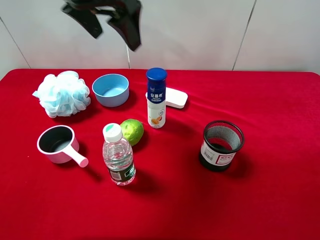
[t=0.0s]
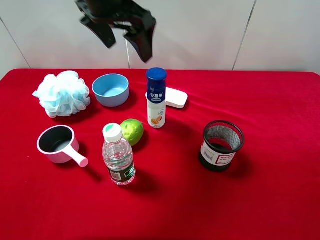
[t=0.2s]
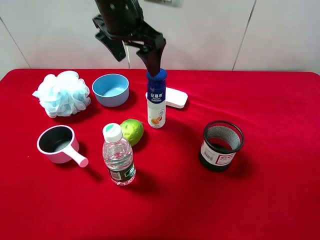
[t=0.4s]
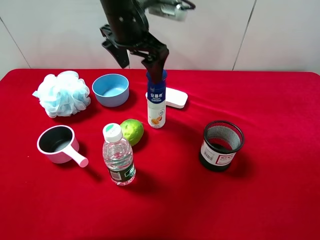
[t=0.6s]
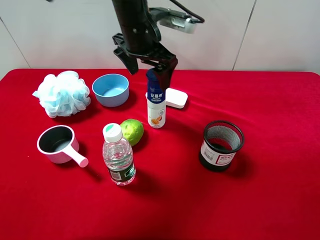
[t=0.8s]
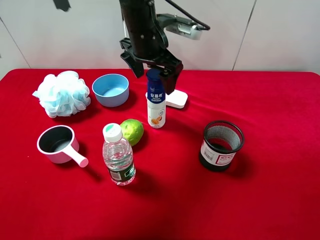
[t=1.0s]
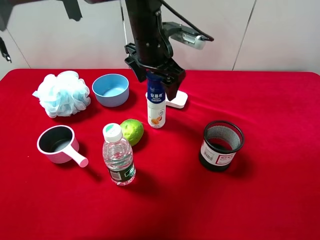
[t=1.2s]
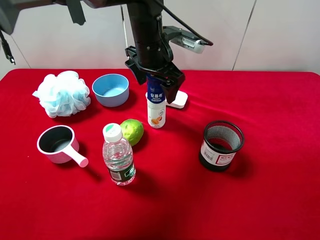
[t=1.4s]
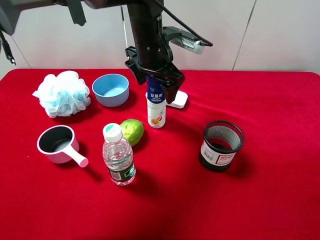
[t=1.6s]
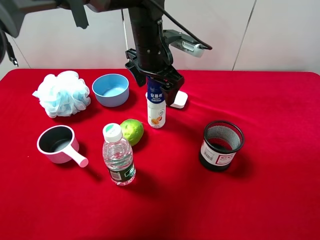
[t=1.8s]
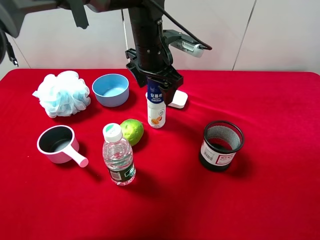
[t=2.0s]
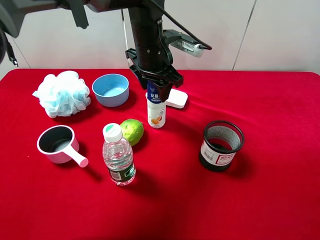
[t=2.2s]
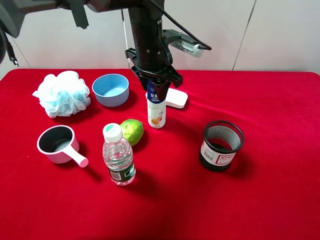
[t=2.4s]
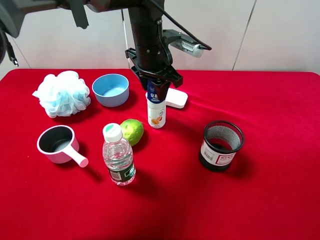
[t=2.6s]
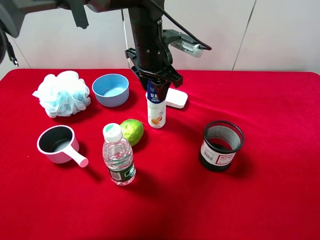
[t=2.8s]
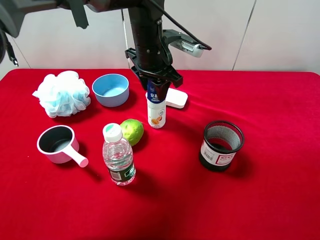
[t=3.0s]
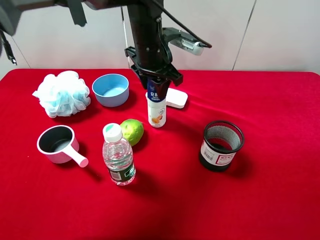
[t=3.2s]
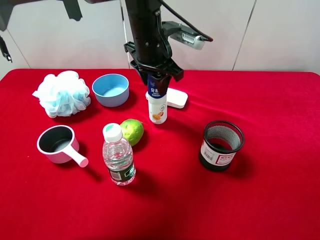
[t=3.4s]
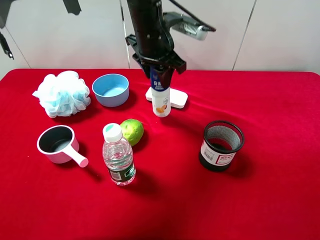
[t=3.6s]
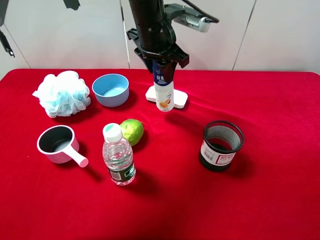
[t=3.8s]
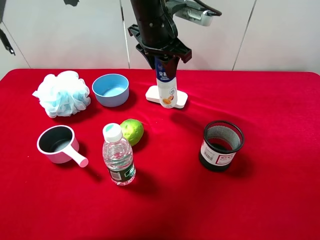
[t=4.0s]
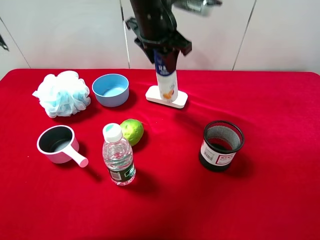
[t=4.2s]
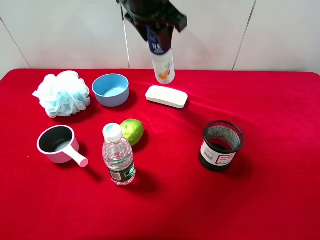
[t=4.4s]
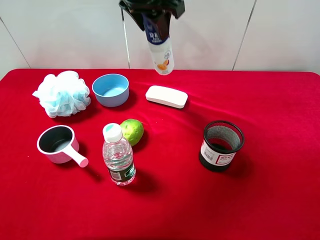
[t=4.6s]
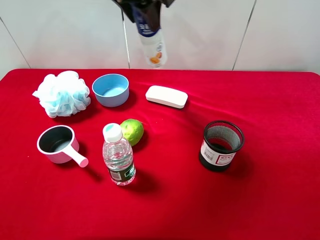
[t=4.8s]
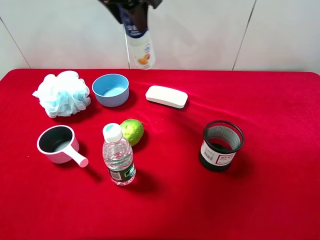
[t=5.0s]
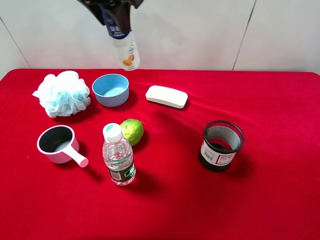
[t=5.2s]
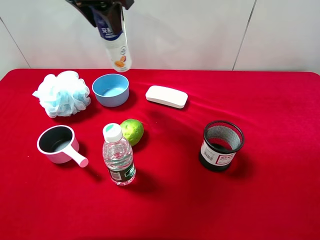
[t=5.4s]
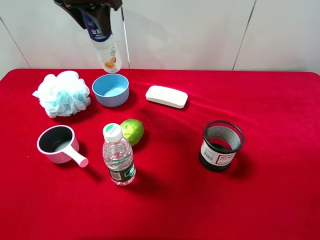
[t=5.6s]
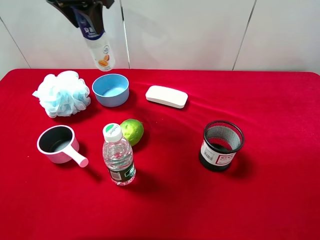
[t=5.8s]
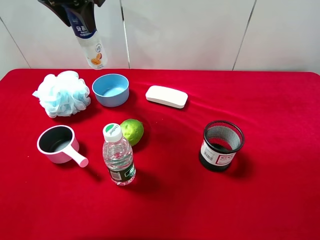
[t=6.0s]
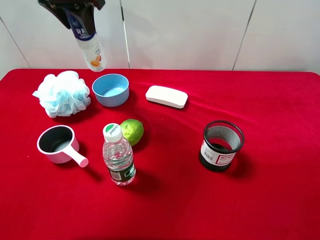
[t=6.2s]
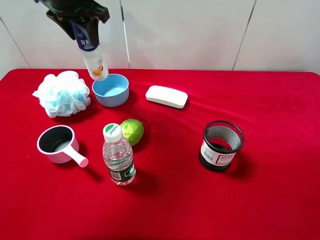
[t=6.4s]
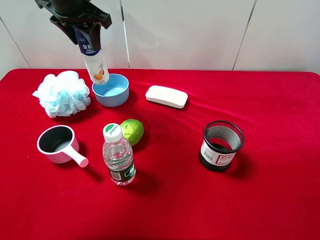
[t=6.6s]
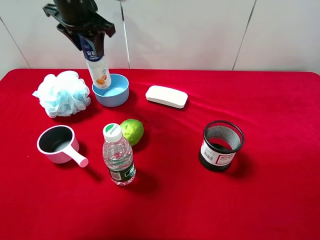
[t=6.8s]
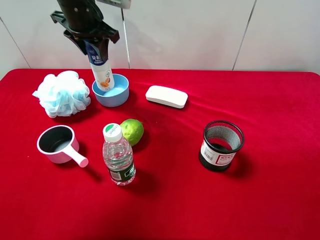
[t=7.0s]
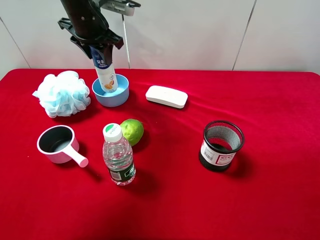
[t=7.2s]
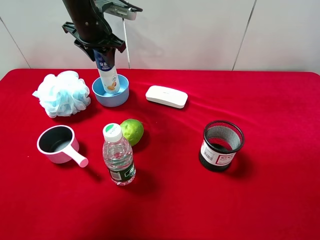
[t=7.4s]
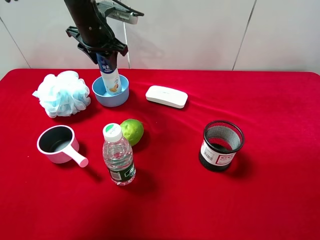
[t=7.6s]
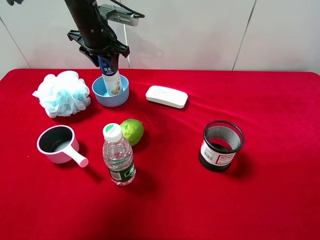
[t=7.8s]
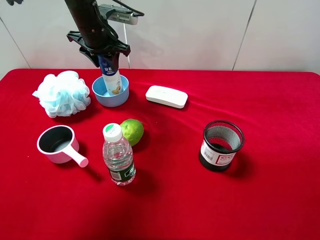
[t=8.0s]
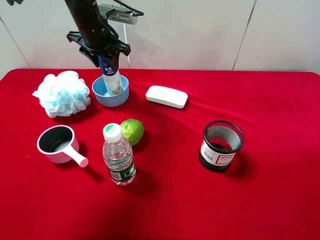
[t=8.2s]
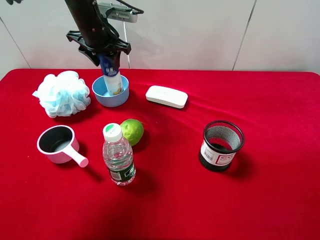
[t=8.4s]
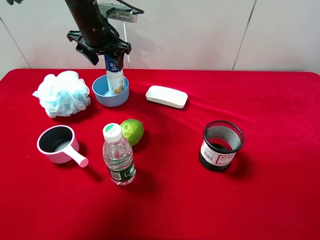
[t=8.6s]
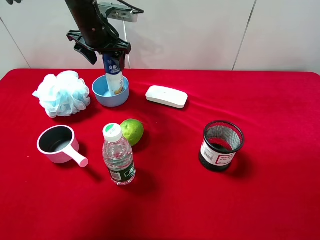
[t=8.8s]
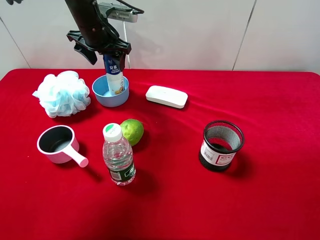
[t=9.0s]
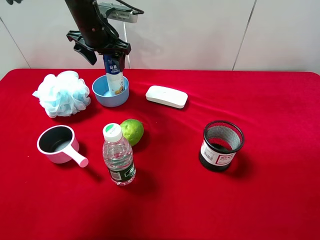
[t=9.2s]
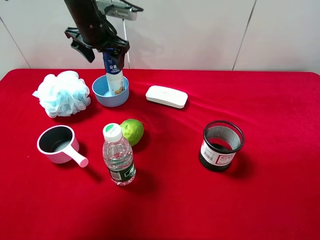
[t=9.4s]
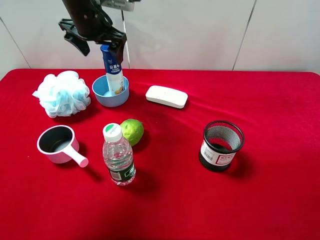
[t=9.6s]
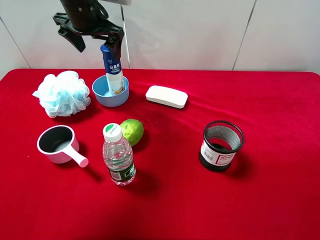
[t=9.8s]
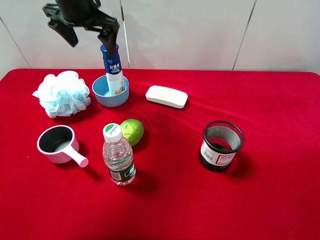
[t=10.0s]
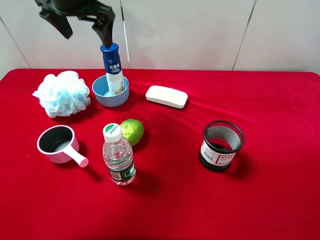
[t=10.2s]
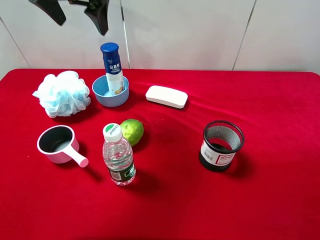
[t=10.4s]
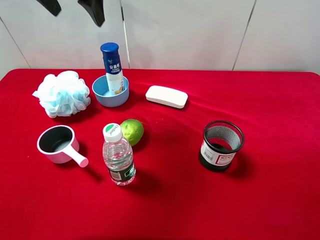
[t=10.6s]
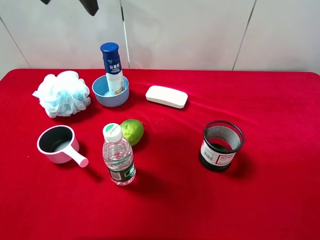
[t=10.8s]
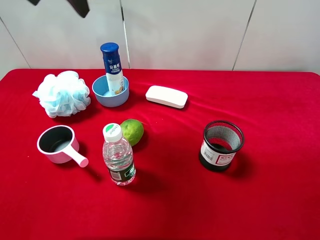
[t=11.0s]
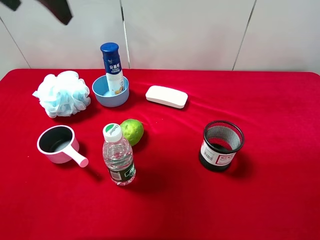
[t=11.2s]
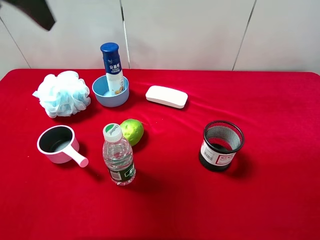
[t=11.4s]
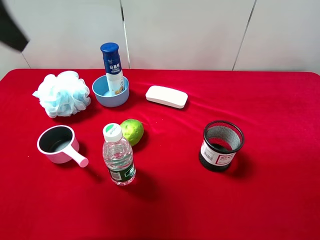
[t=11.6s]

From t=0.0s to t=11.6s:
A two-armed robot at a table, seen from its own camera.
Task of the whole recording: pick up an item with a gripper and place it in a random container on the desktop.
From t=0.0s to t=1.4s: The left gripper shifts approximately 15 cm downward and to the right.
From t=1.4s to t=2.8s: The left gripper closes its fingers.
From t=2.8s to t=4.4s: The left gripper is displaced upward by roughly 10 cm.
From t=4.4s to t=5.8s: The left gripper is displaced to the left by approximately 15 cm.
From t=5.8s to t=7.2s: The left gripper shifts about 10 cm downward and forward.
From t=7.2s to t=8.8s: The left gripper opens up.
From t=8.8s to t=10.2s: The left gripper is displaced upward by approximately 10 cm, and opens its fingers.
From t=10.2s to t=11.6s: The left gripper goes about 20 cm backward and upward.

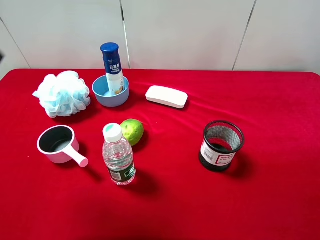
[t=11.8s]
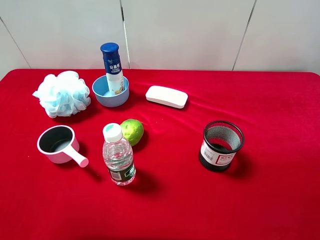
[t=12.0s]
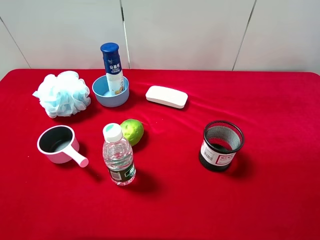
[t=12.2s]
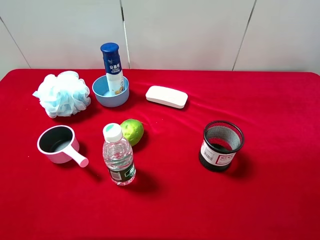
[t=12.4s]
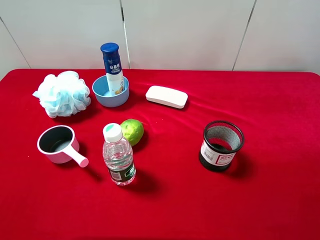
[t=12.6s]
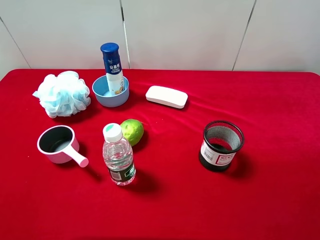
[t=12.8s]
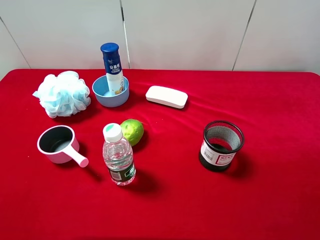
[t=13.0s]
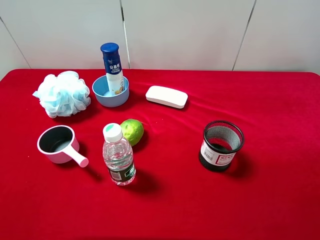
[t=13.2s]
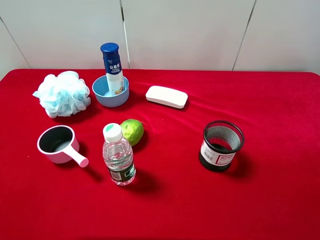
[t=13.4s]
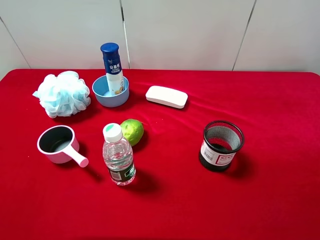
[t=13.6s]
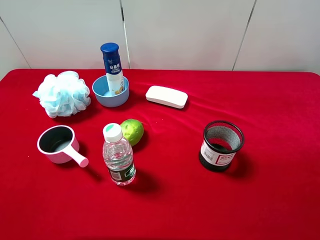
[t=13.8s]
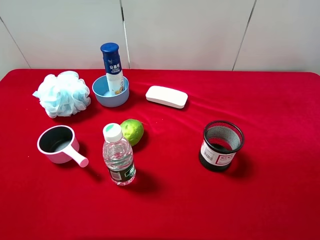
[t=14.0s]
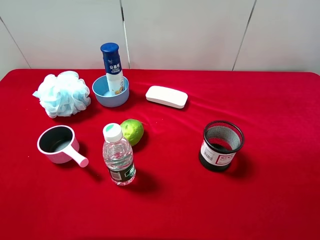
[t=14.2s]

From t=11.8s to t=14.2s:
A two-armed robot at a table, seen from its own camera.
Task of the whole recording: pick up an item with a gripper and place it in a random container on the desktop.
From t=13.0s to t=14.2s: Both grippers stay put.
